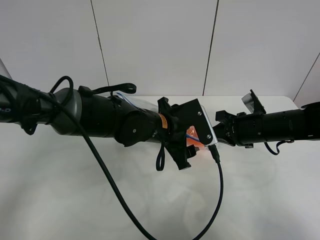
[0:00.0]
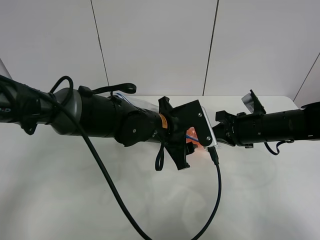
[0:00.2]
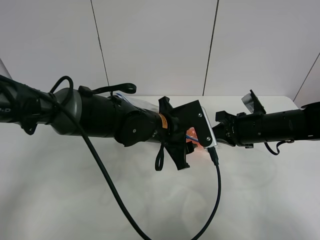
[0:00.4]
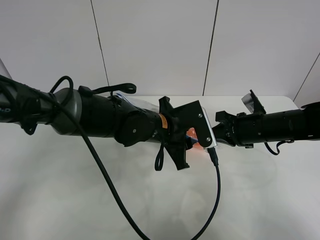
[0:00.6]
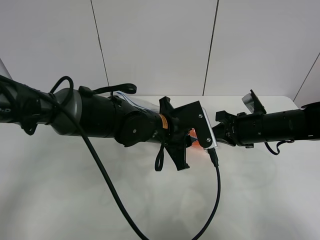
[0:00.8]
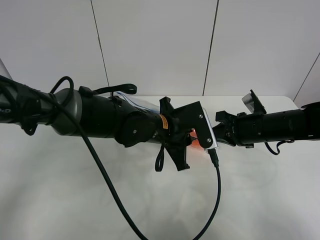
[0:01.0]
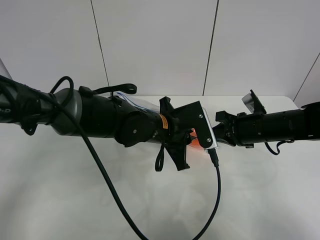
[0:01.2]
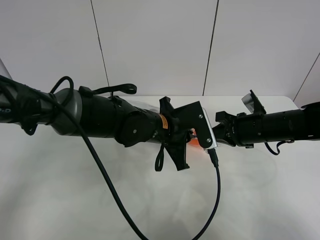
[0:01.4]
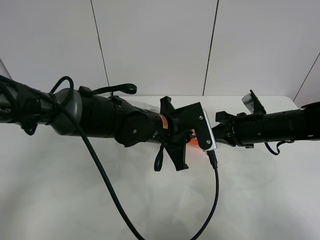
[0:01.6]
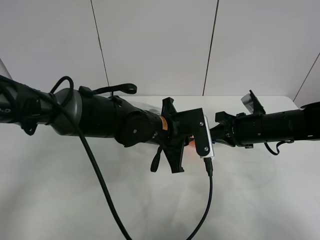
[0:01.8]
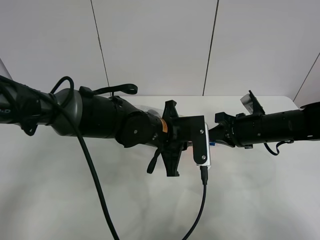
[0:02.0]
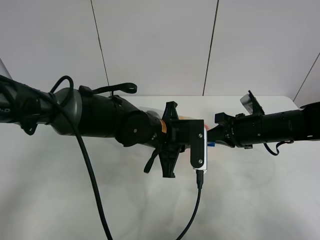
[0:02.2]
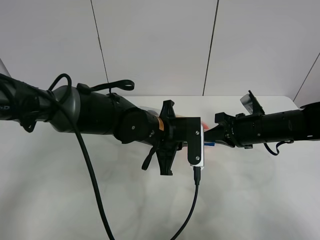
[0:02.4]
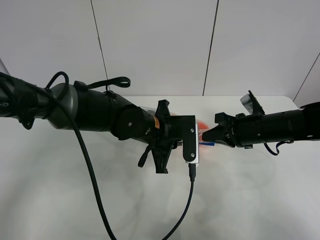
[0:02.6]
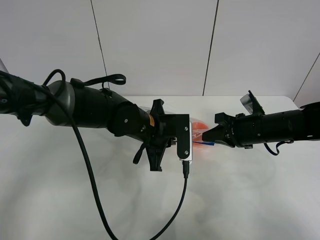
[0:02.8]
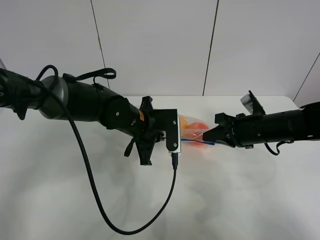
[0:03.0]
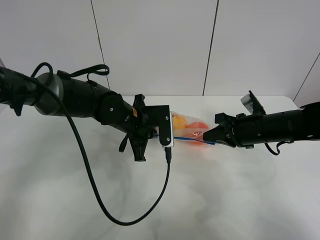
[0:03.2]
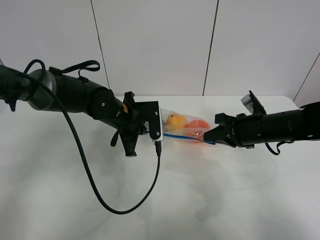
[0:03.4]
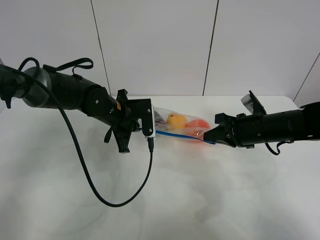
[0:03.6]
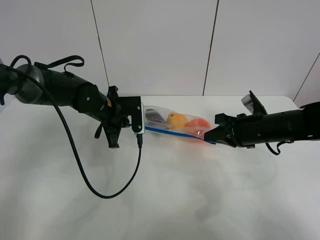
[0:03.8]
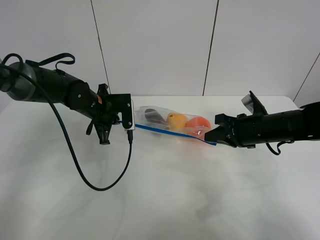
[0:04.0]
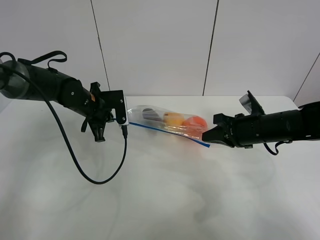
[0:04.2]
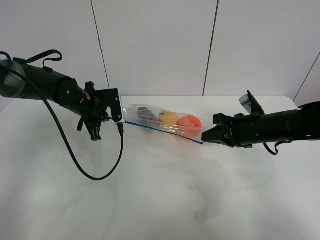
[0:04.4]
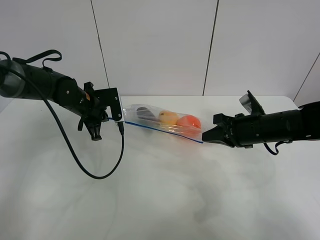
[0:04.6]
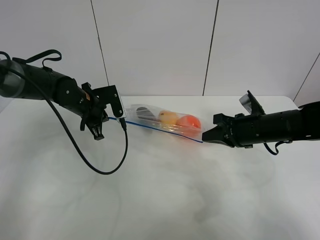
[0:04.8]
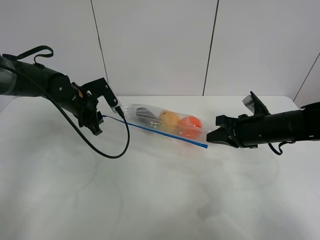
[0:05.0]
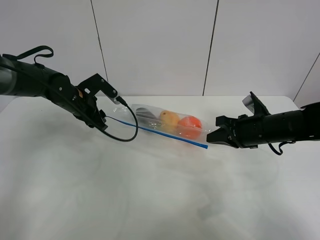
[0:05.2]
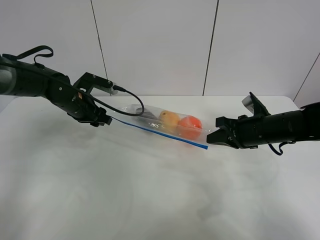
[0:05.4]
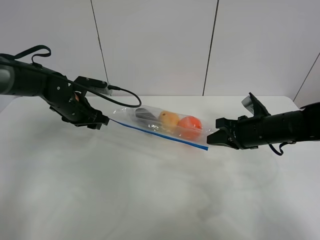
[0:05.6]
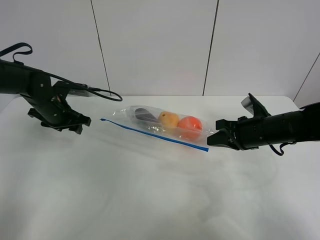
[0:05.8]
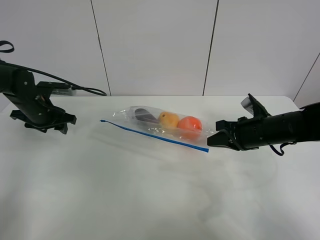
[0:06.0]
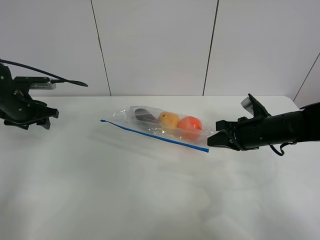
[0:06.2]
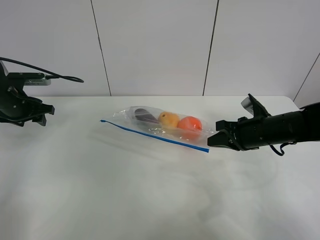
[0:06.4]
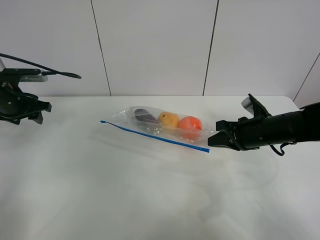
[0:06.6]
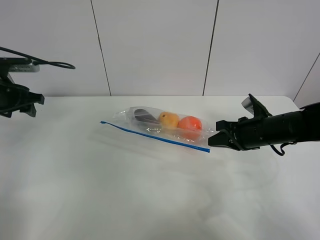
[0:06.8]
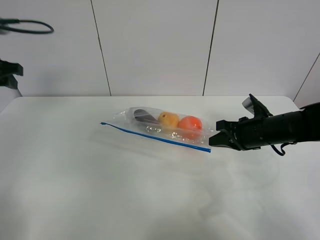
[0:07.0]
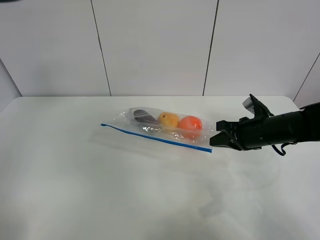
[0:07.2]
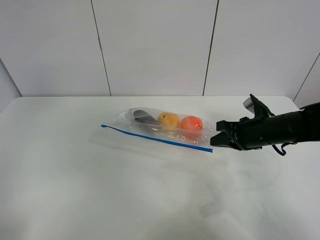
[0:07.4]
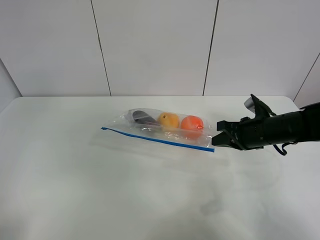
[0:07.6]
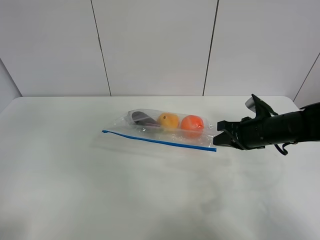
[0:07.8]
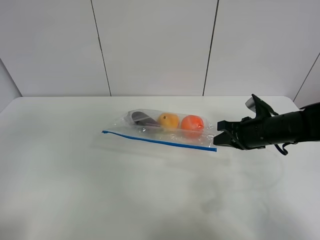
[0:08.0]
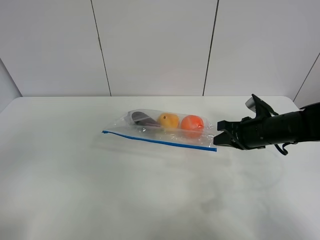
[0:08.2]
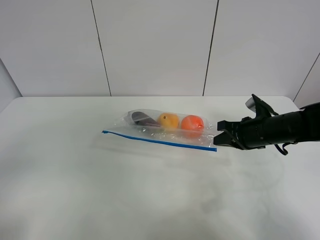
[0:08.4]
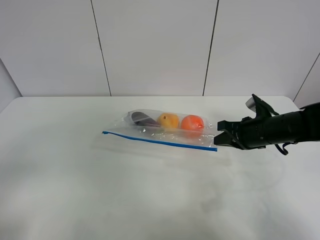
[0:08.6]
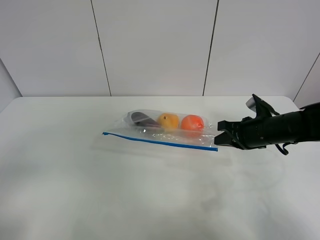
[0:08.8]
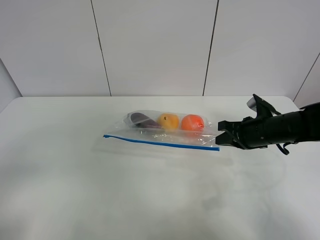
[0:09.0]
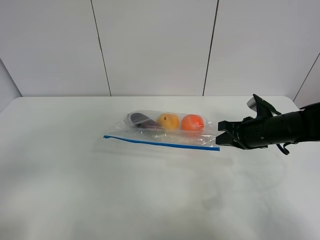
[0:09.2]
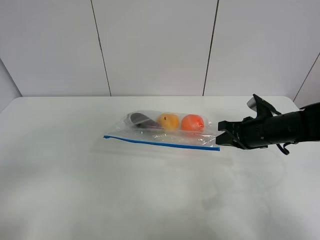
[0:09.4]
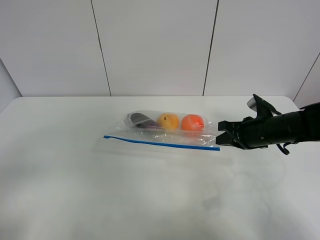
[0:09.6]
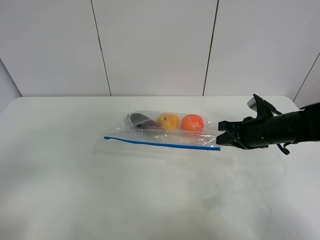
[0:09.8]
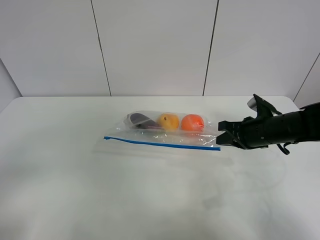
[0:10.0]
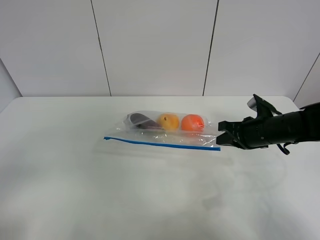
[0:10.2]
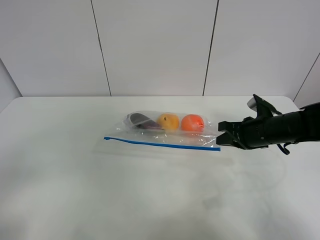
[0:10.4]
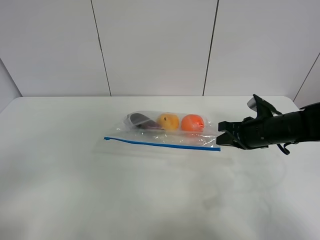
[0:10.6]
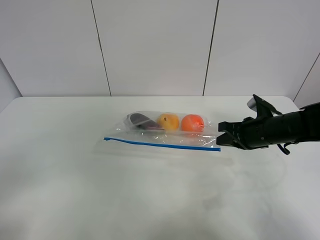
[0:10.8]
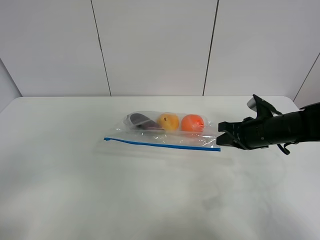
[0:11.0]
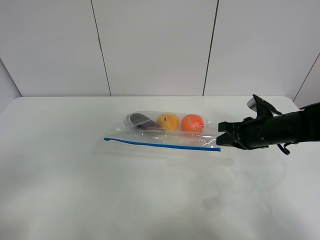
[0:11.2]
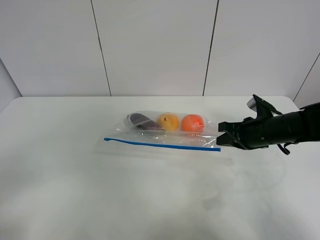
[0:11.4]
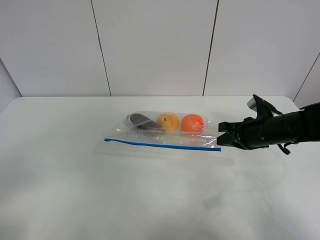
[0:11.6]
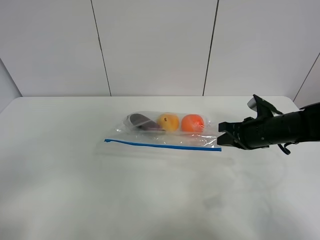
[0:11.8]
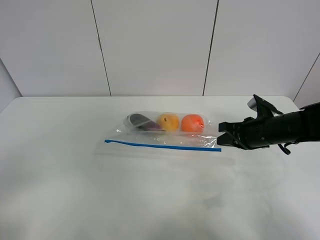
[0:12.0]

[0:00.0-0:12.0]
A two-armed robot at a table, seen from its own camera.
Step, 0:00.0 to 0:05.0: Pull the fruit bag with left gripper.
0:00.0 to 0:01.6: The left gripper closes its fingers.
0:01.6 to 0:03.0: The left gripper heads to the left, covering roughly 5 cm.
0:03.0 to 0:04.4: The left gripper heads to the left and forward, covering approximately 15 cm.
0:04.4 to 0:06.0: The left gripper shifts roughly 10 cm to the left, and opens up.
0:06.0 to 0:07.6: The left gripper heads upward and backward, covering some 40 cm.
0:07.6 to 0:09.0: The left gripper heads downward and backward, covering some 20 cm.
0:10.4 to 0:12.0: The grippers make only small movements.

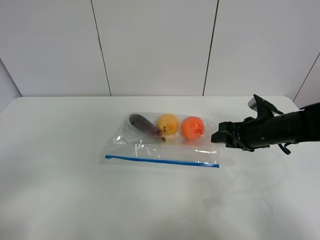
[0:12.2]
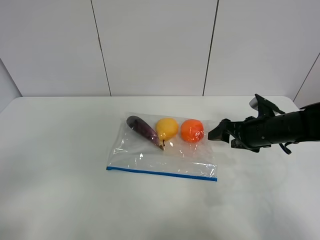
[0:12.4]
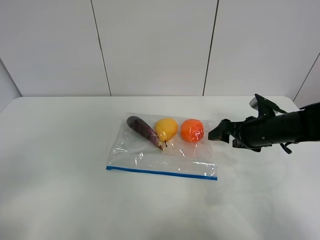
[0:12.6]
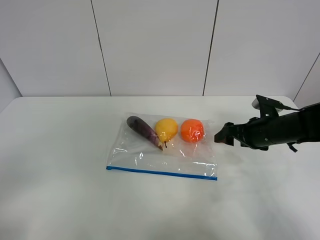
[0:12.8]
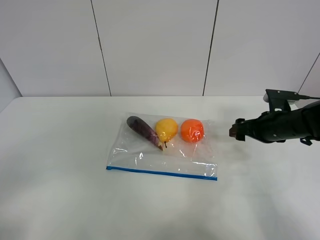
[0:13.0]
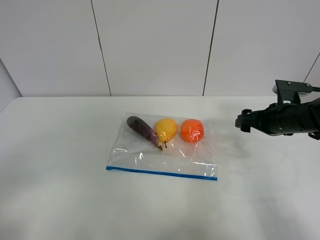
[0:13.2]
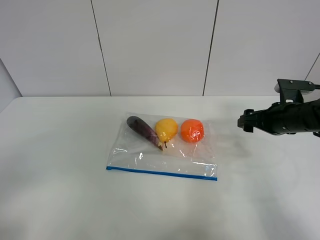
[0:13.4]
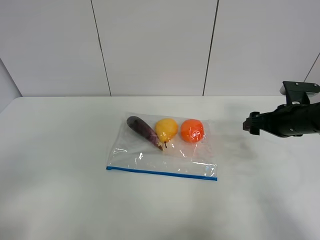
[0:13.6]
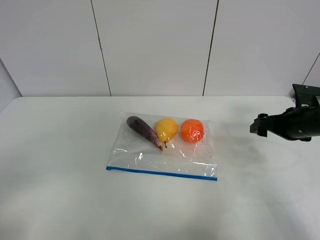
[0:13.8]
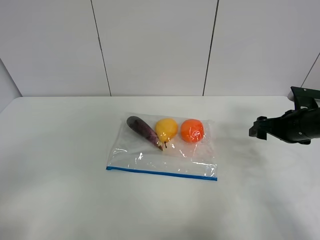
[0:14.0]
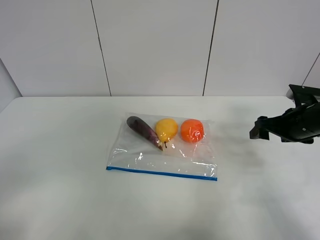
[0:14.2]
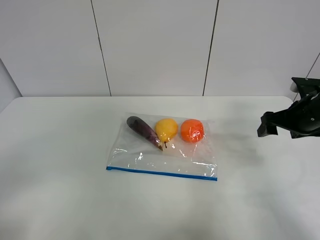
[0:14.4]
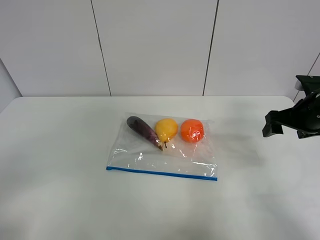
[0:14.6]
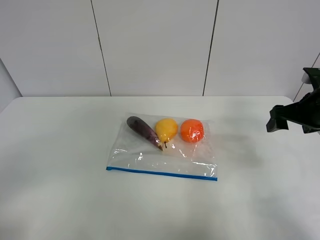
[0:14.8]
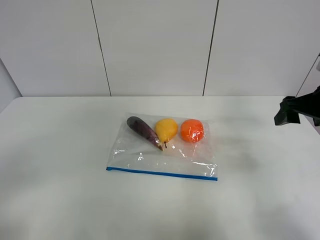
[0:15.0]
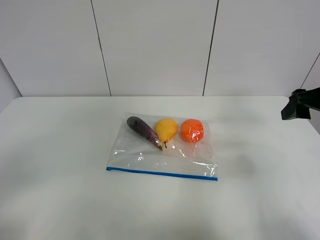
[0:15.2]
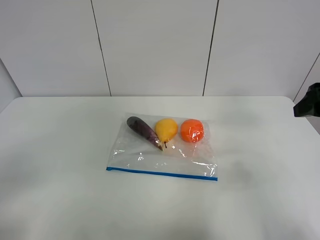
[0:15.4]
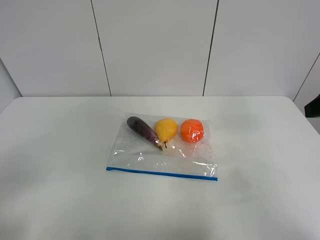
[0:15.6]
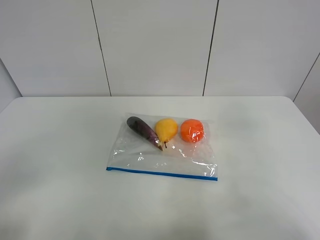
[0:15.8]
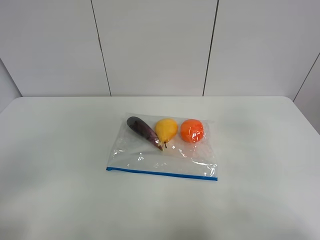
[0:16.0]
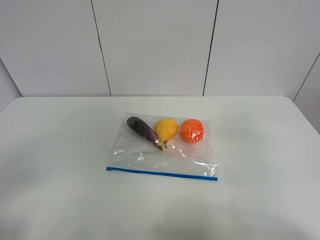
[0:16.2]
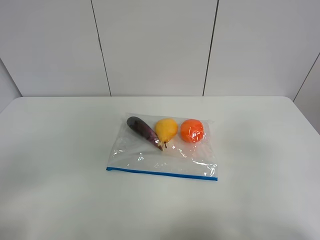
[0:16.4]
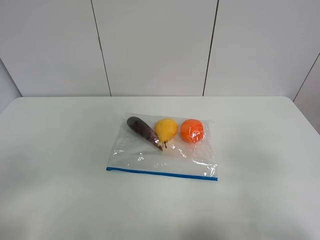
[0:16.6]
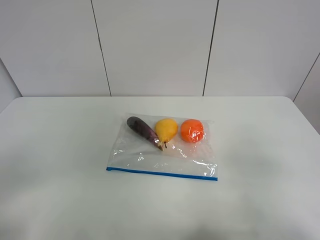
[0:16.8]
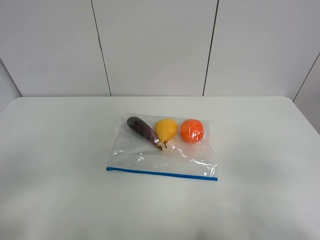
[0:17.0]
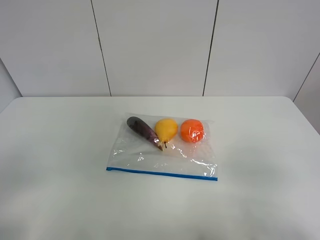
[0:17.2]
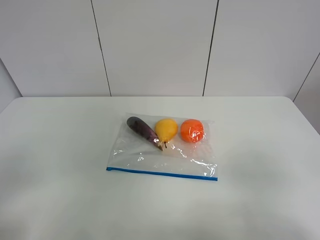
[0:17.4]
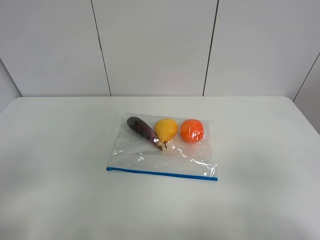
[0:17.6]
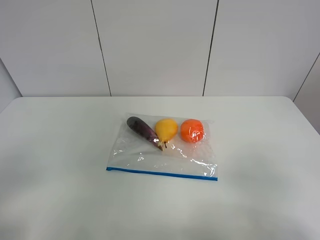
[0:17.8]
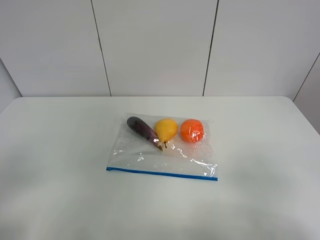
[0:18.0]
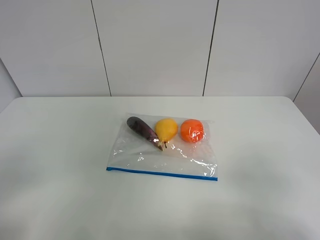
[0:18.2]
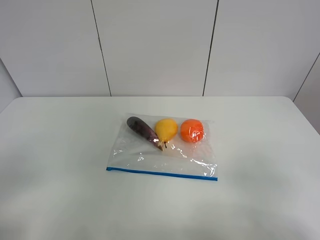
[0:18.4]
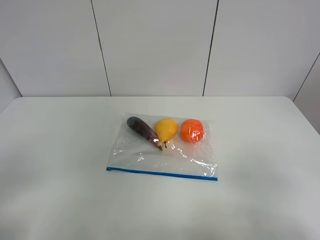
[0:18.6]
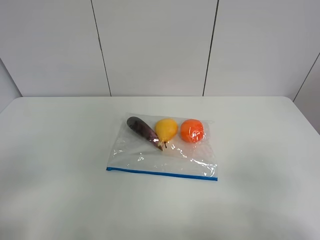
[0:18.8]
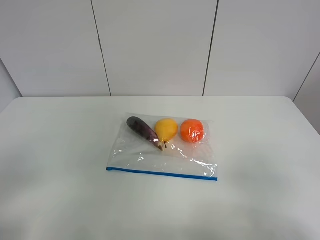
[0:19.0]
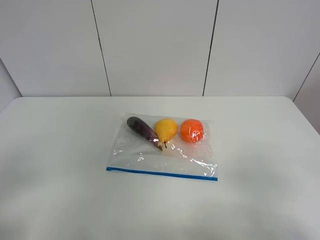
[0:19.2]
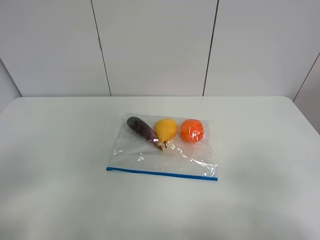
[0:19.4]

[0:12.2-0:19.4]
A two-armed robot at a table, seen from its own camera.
0:12.2 to 0:13.6: The right gripper moves to the right, some 5 cm.
0:13.6 to 0:15.0: The right gripper shifts some 10 cm upward.
0:15.0 to 0:16.6: The right gripper goes approximately 20 cm backward.
0:18.0 to 0:19.4: Both grippers stay put.
